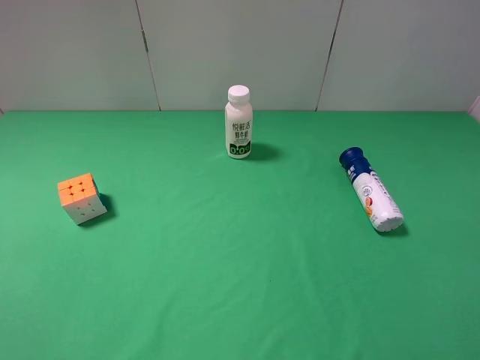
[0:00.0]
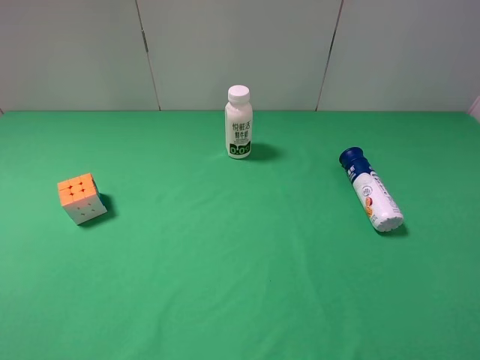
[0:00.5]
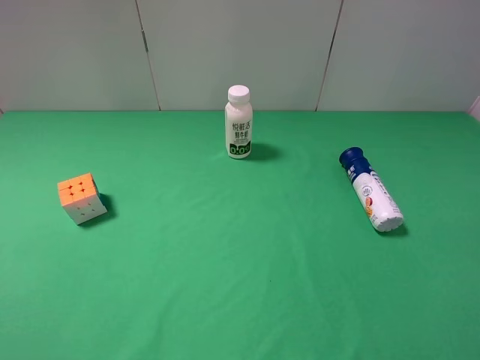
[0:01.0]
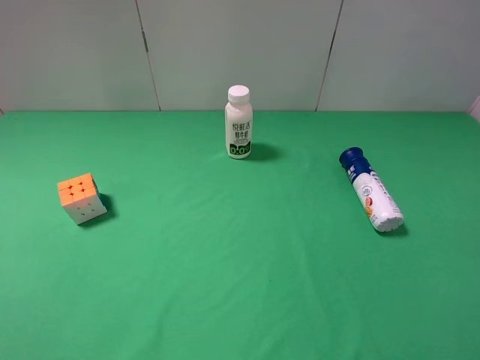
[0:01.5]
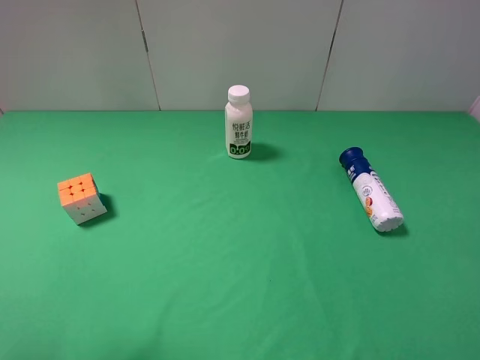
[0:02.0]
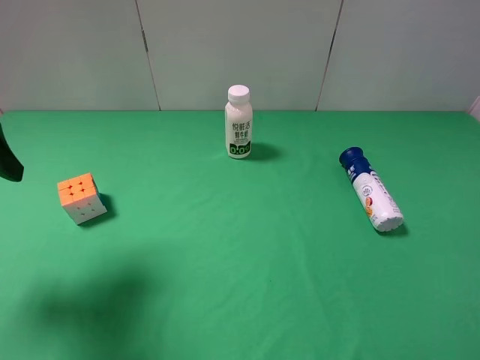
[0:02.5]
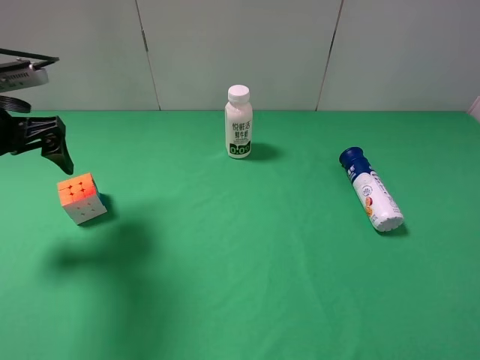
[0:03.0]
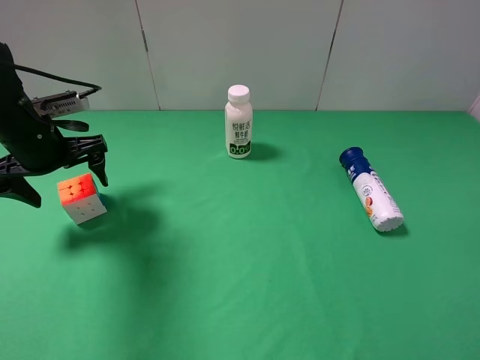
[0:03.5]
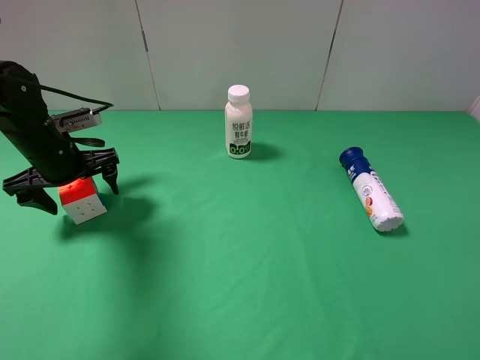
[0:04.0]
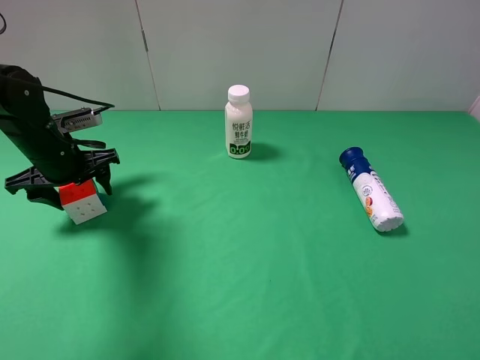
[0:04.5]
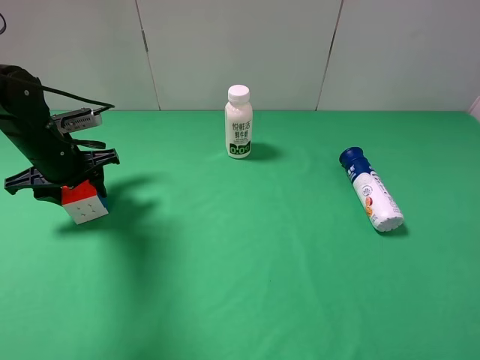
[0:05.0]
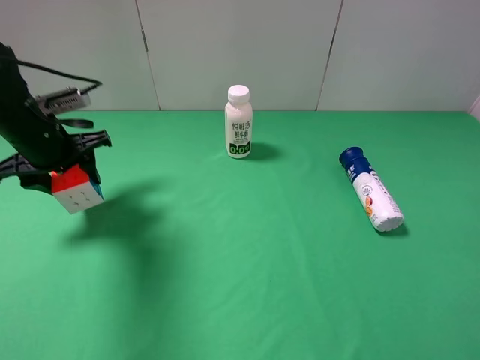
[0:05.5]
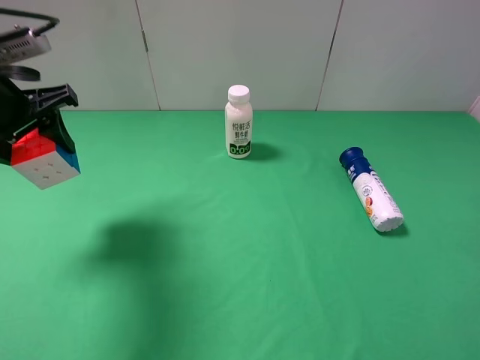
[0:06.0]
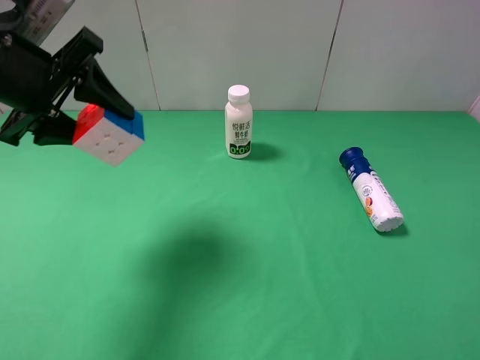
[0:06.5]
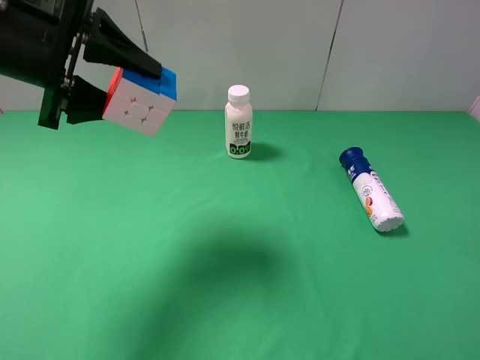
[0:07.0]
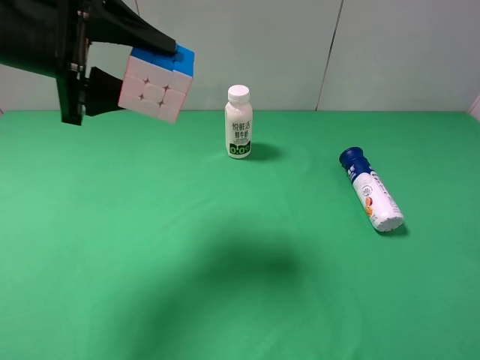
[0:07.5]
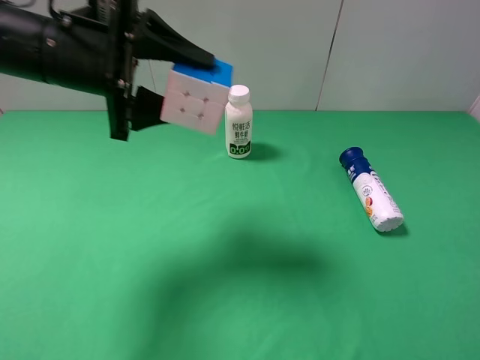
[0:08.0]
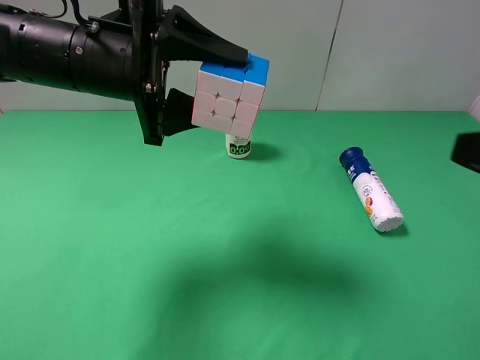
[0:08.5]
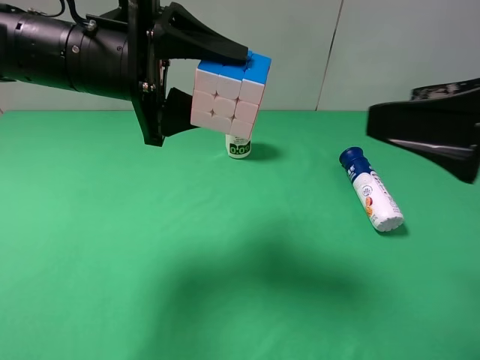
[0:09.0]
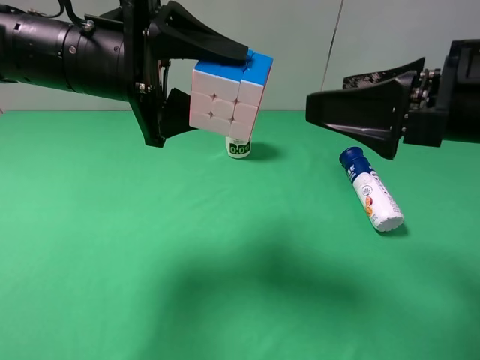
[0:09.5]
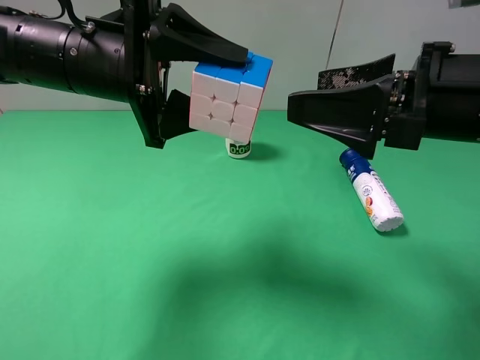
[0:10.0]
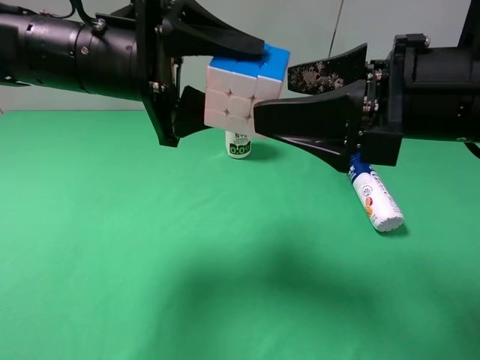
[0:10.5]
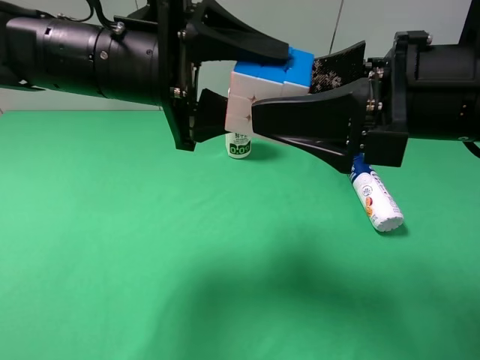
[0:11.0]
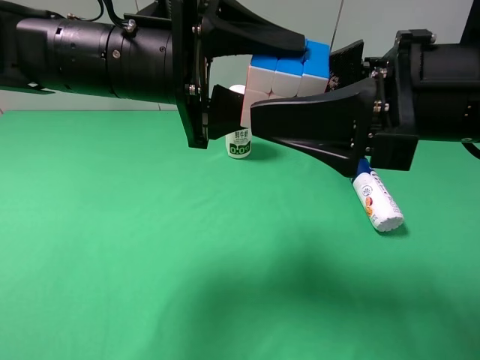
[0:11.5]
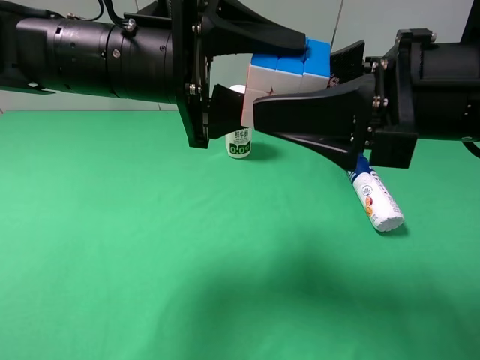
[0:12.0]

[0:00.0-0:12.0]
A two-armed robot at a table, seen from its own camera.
Task of the whole recording: use the left gripper to pick up the item and transfer it from the left gripper to the right gripper.
Step, 0:00.0 to 0:04.5: Use the left gripper to grab the Rubik's Cube on the left side of the table.
0:02.0 to 0:04.0: The left gripper goes approximately 30 cm forward and downward.
0:04.0 to 0:06.0: The left gripper shifts about 15 cm upward and backward, and closes its fingers.
0:06.0 to 0:08.0: The left gripper travels to the right by some 10 cm.
0:08.0 to 0:10.0: The right gripper goes approximately 20 cm forward and to the left.

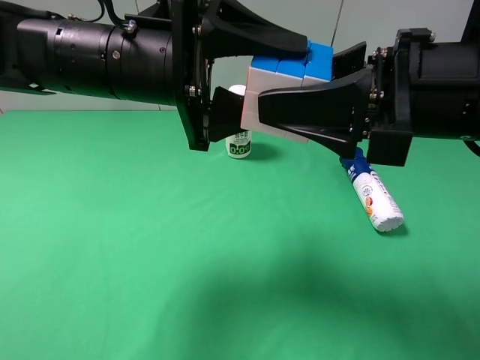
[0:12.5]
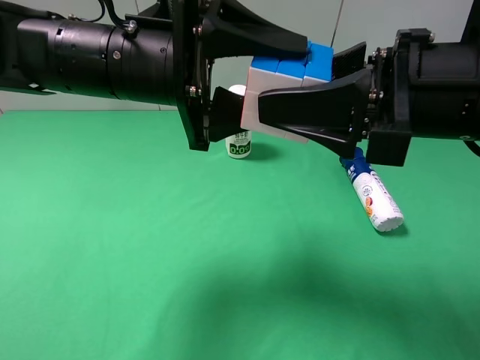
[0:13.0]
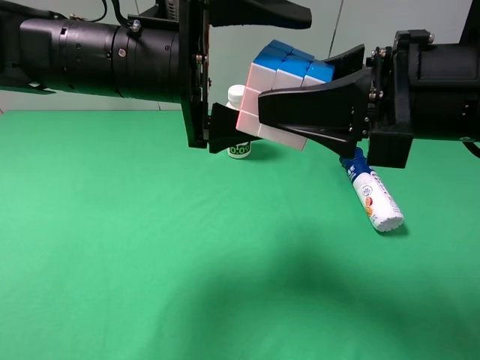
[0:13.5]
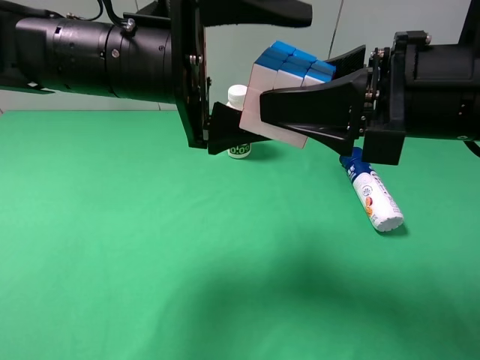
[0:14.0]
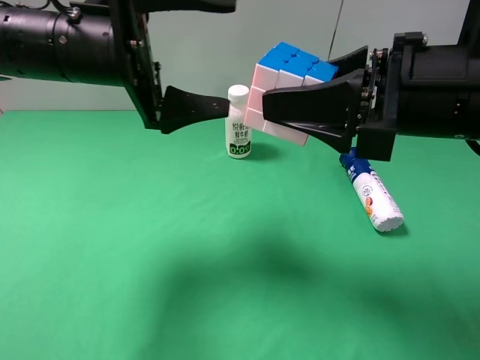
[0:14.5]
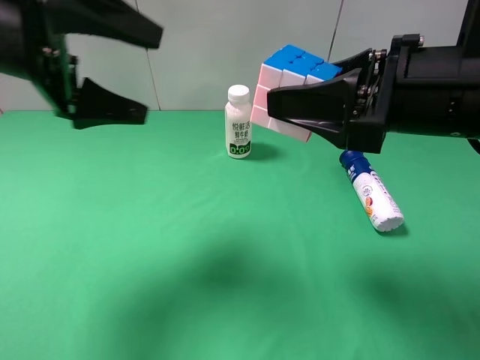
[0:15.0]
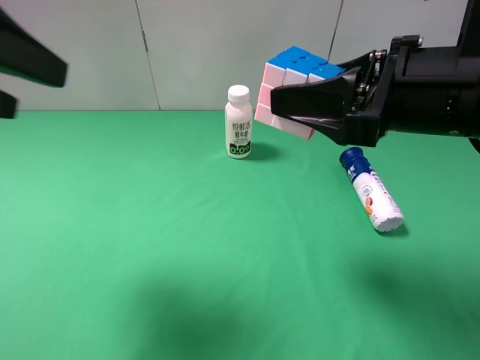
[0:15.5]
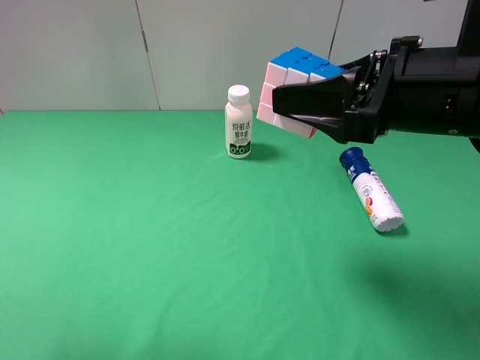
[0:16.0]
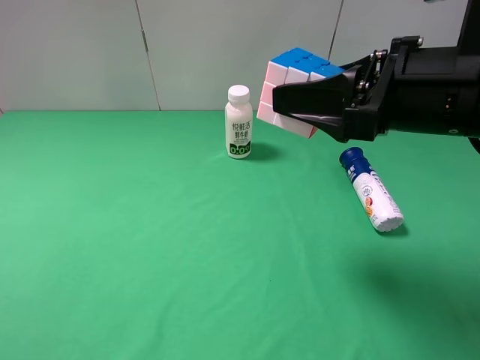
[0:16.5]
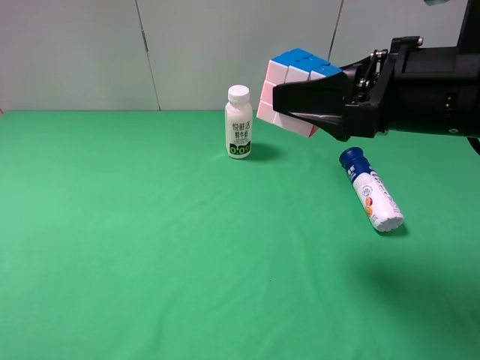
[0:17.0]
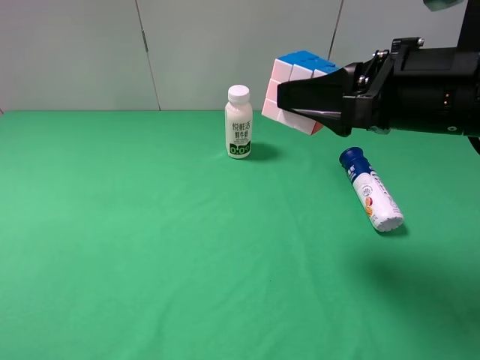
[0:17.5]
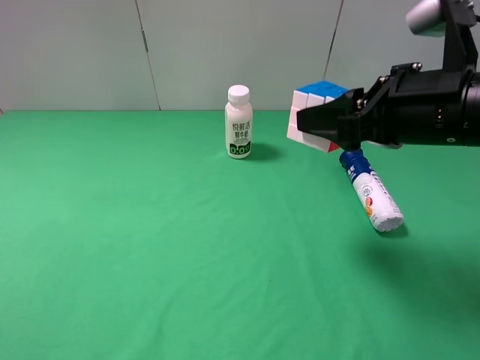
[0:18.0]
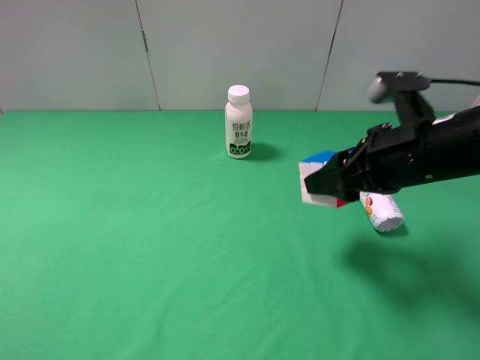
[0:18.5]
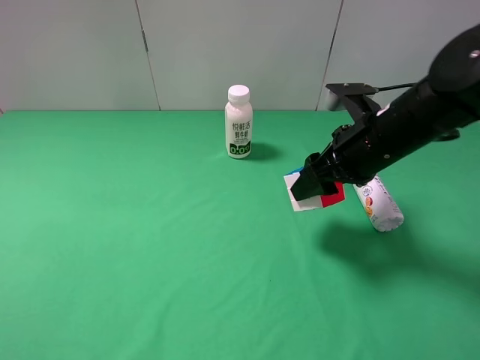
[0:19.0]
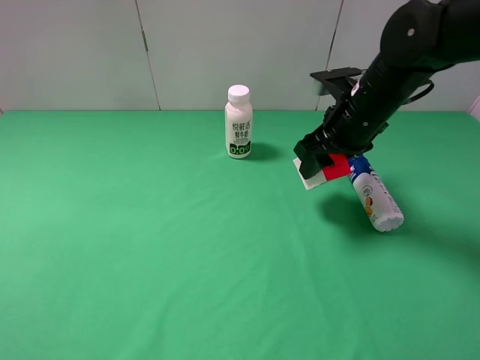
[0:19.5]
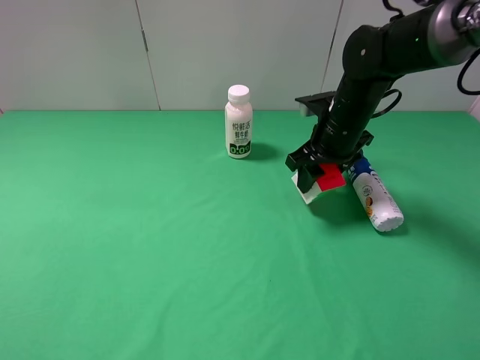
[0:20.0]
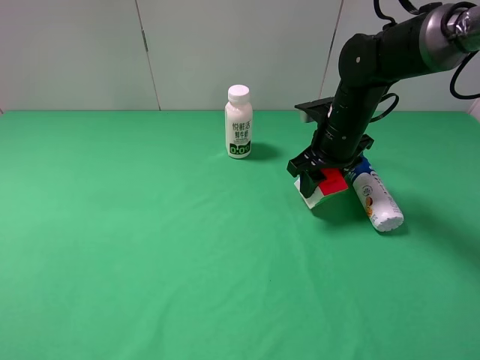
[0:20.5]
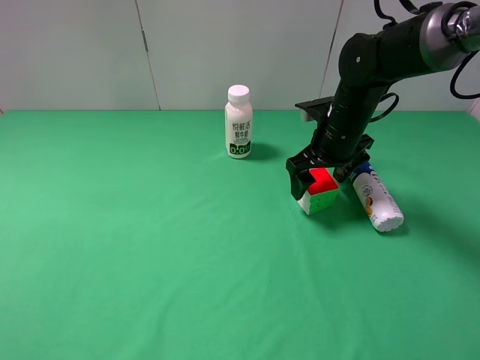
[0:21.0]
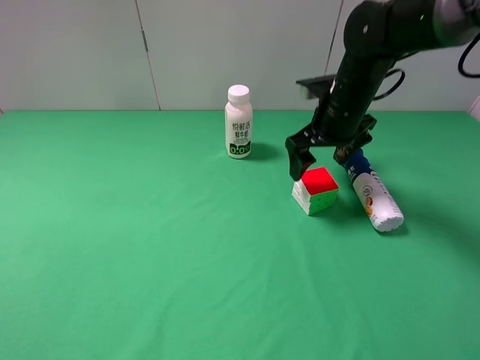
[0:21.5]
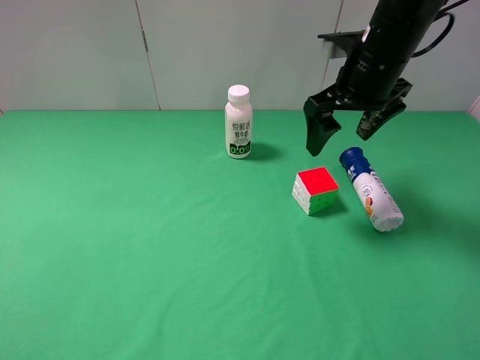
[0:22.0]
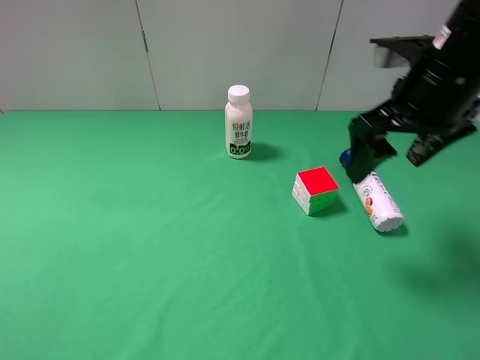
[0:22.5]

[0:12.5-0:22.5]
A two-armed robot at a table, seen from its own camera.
Task of the whole recording: use the left gripper to pick up the item and transfer it from the left gripper to the right gripper.
Step, 0:13.5 to 0:20.5: The right gripper places Rubik's Cube on the right side of the table.
0:12.5 to 0:14.5: The left gripper travels to the left by some 5 cm, and opens its fingers.
0:14.5 to 0:16.5: The left gripper heads backward and to the left, covering approximately 30 cm.
0:16.5 to 0:18.5: The right gripper is displaced downward by approximately 5 cm.
0:18.5 to 0:20.5: The right gripper is displaced forward and downward by some 15 cm.
0:20.5 to 0:22.5: The right gripper moves upward and backward, roughly 15 cm, and opens up.

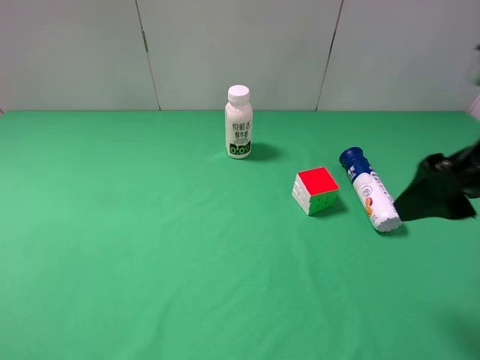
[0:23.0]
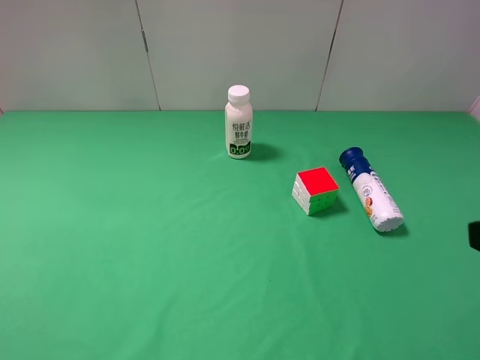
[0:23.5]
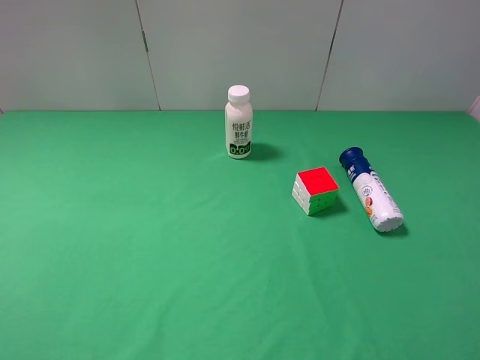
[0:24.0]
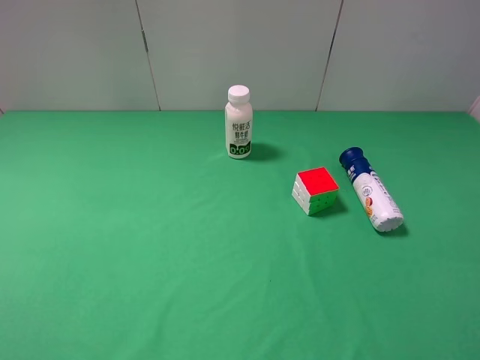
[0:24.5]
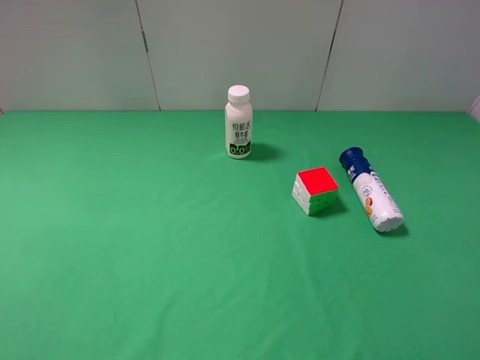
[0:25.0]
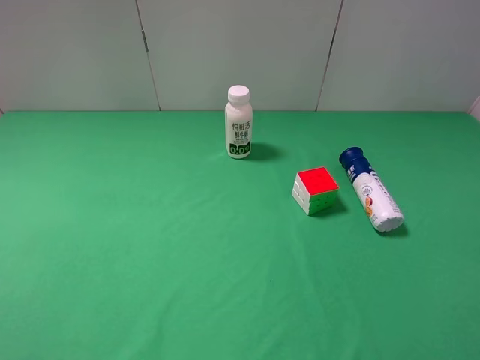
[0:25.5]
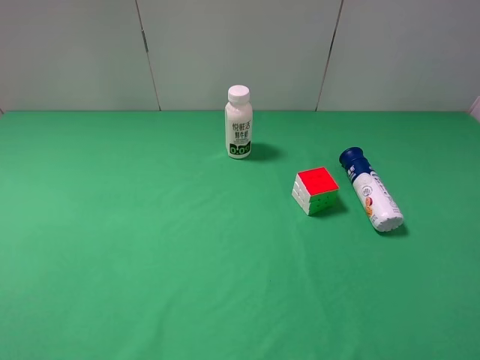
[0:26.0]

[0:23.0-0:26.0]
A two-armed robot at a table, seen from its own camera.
Task of the whole recording: use the left gripper to pick up the item and transfer it from the left gripper to the right gripper.
0:23.0 to 0:24.5: The right gripper heads backward and to the right, covering some 15 cm.
